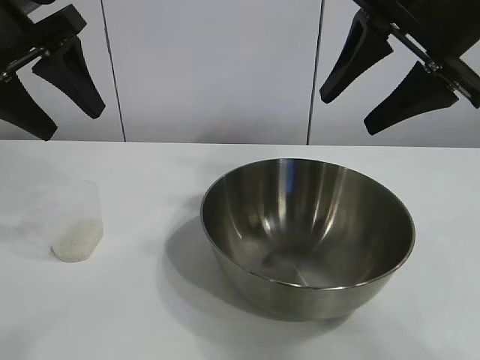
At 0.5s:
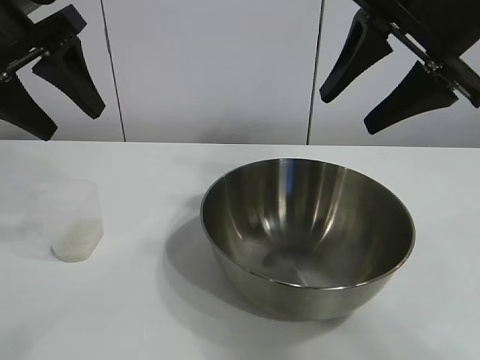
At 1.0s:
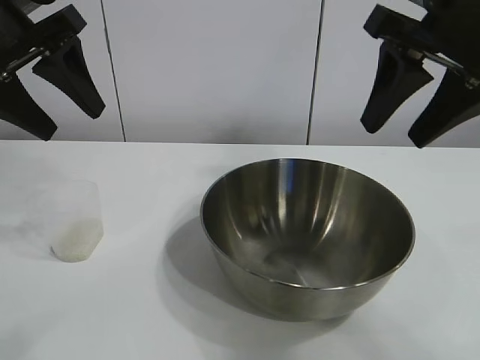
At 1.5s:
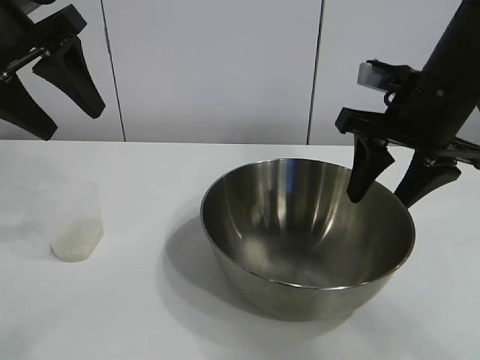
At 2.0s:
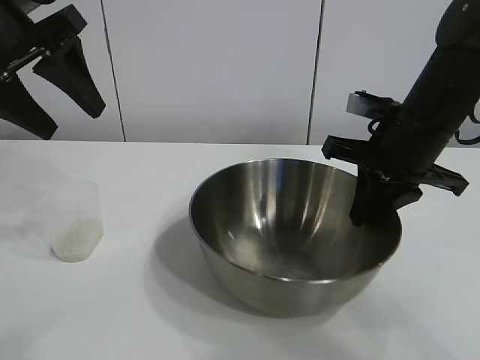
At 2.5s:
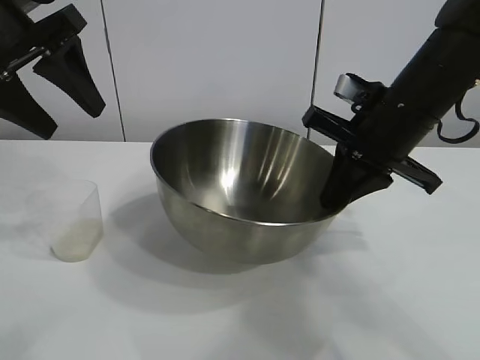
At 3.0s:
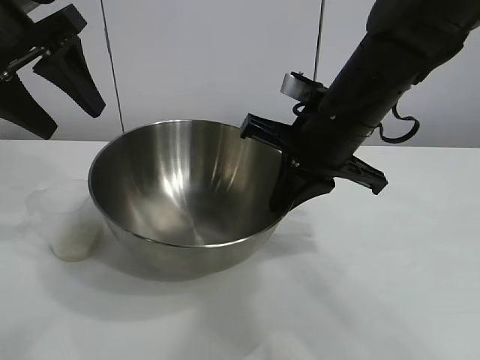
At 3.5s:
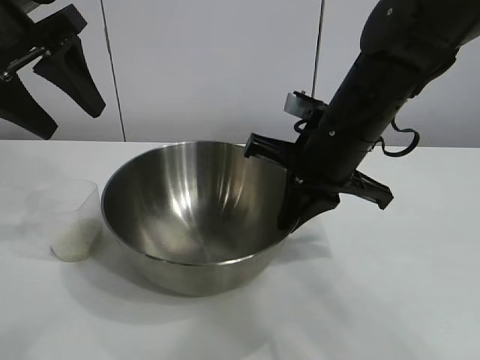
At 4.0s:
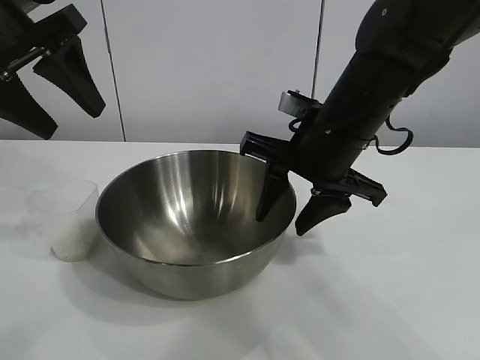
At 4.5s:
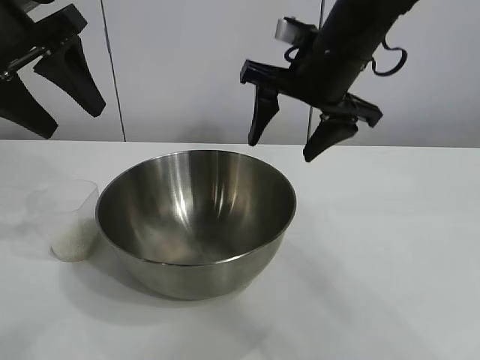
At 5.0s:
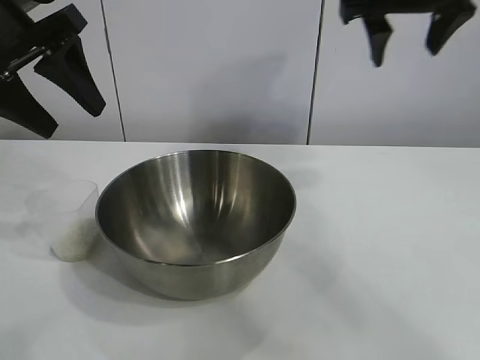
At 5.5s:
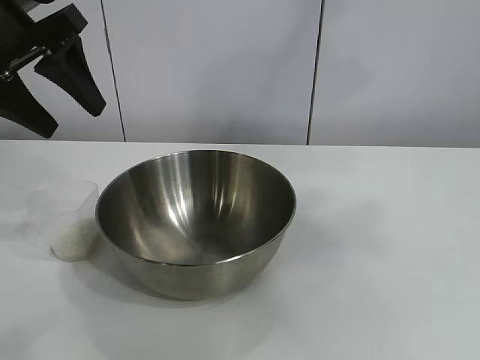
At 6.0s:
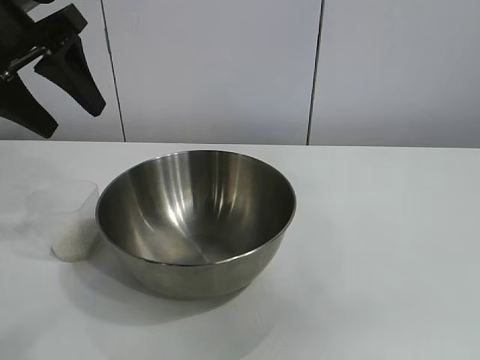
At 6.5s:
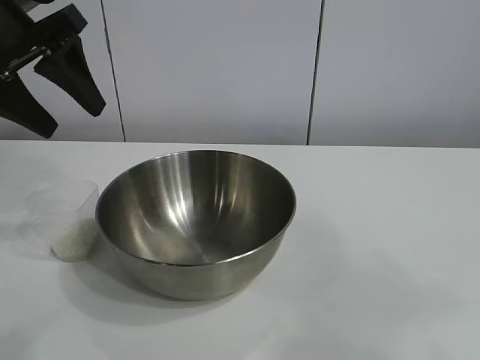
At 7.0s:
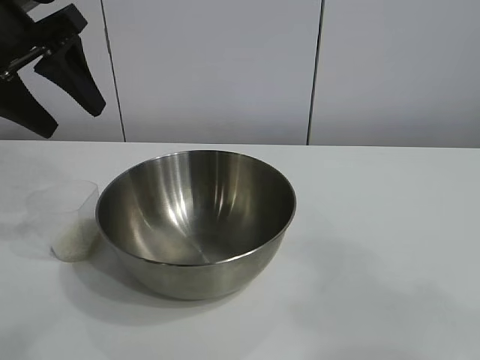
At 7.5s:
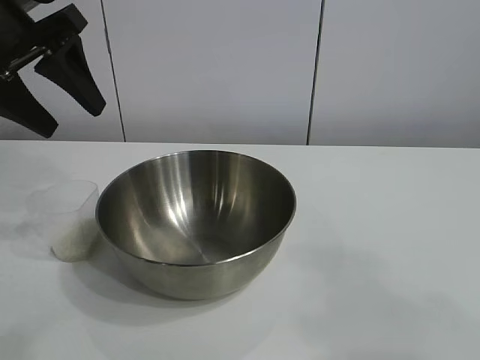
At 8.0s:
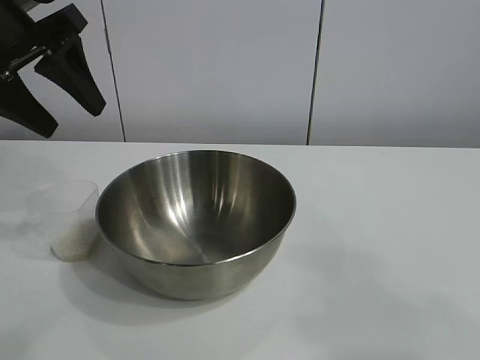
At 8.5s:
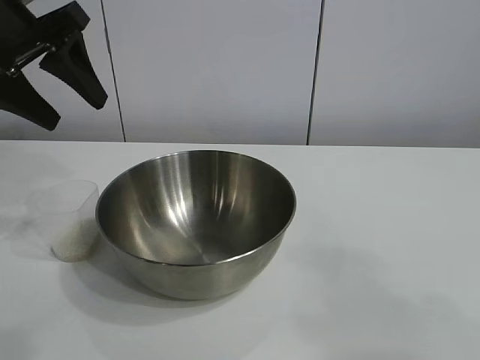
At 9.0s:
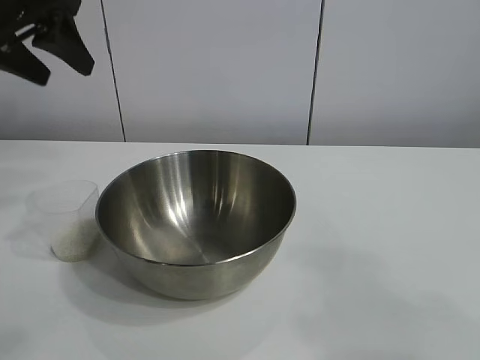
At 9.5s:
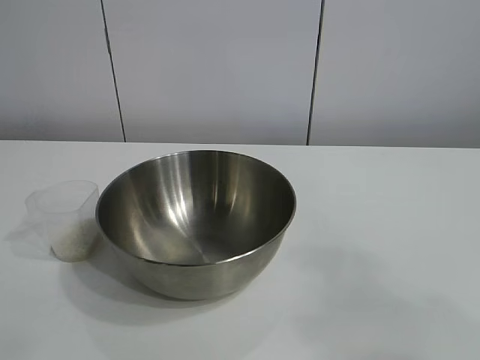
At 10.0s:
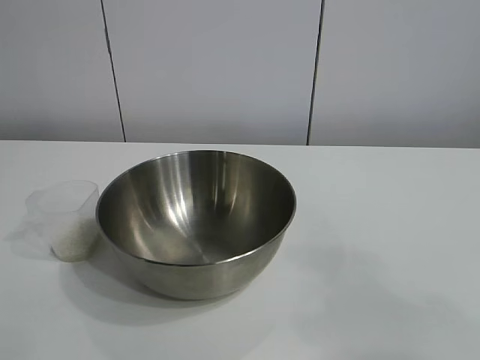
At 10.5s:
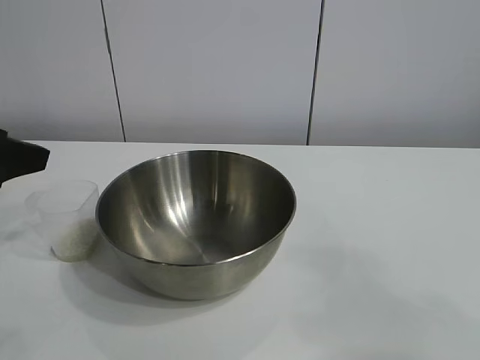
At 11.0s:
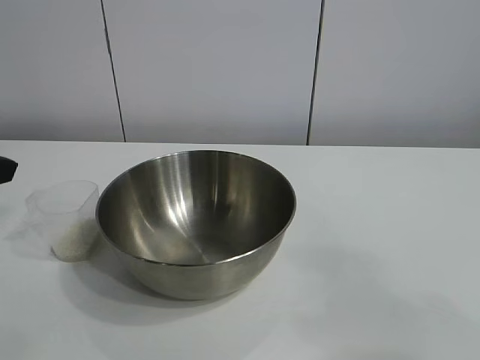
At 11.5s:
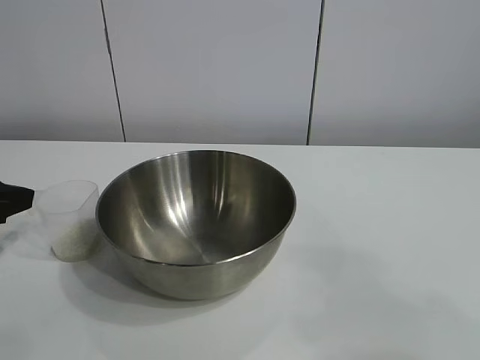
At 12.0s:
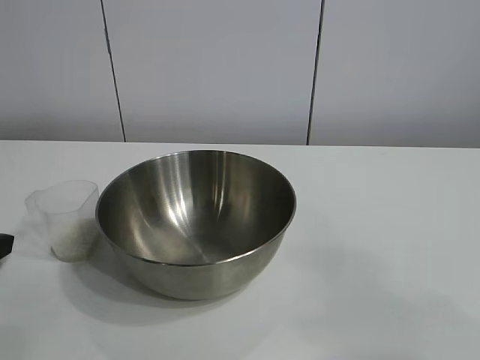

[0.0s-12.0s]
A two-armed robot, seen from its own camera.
Task of the whole recording: the right gripper grasp the rice container and place it in the center of the table, the left gripper grasp the rice scoop and pour the rice into the rice container.
Step, 1.0s to 4.0s: Move the bowl in the center of view with right gripper.

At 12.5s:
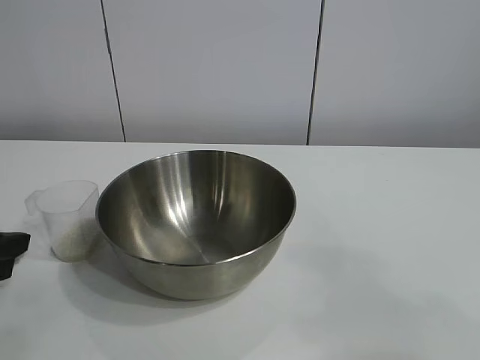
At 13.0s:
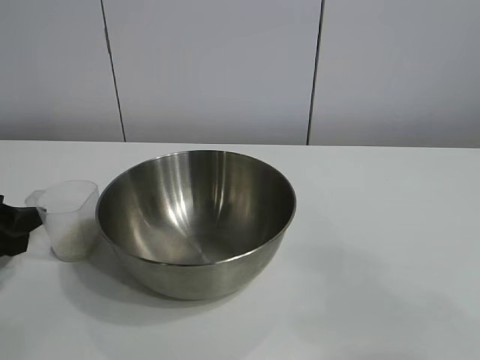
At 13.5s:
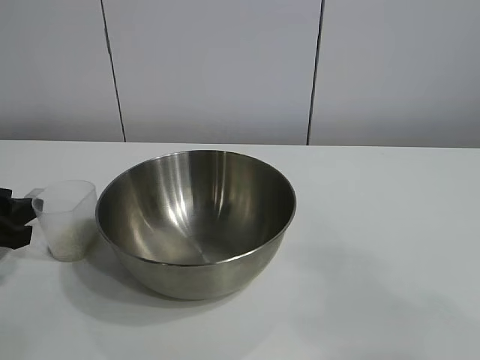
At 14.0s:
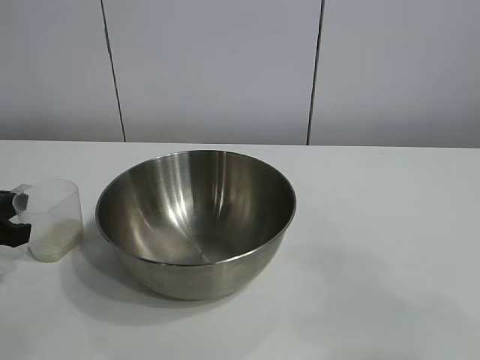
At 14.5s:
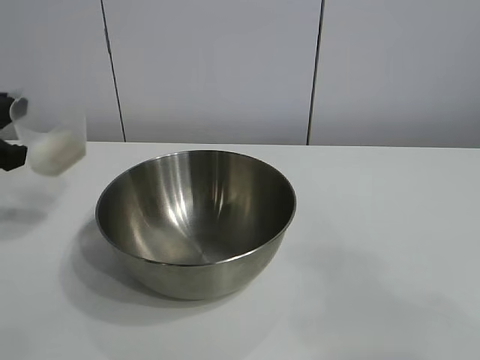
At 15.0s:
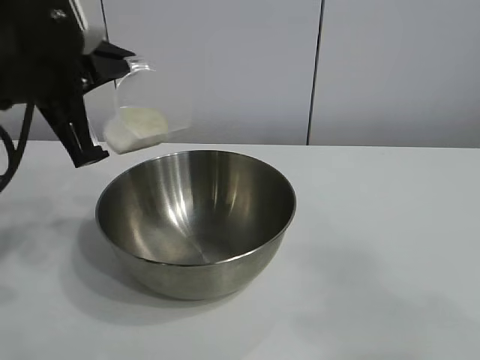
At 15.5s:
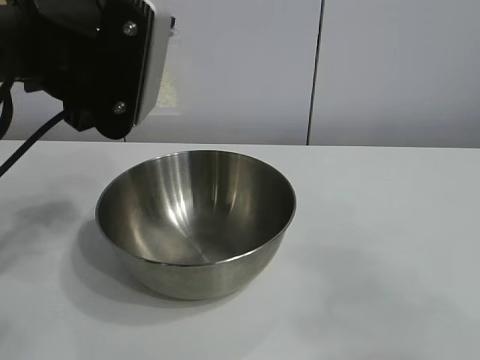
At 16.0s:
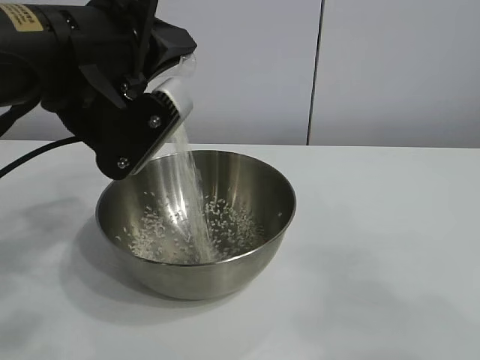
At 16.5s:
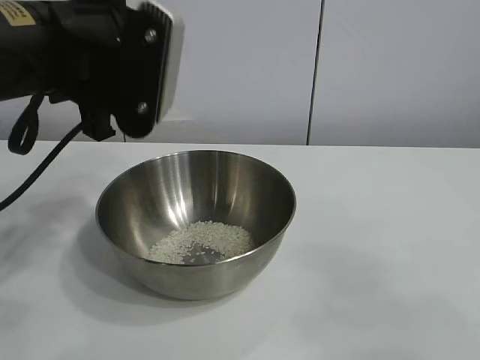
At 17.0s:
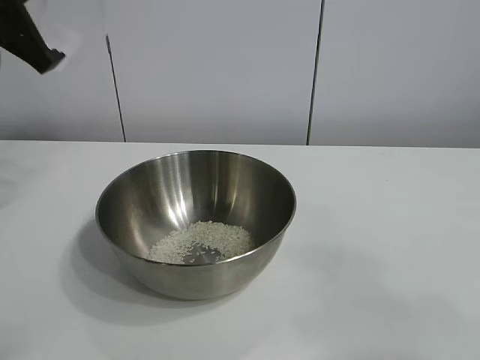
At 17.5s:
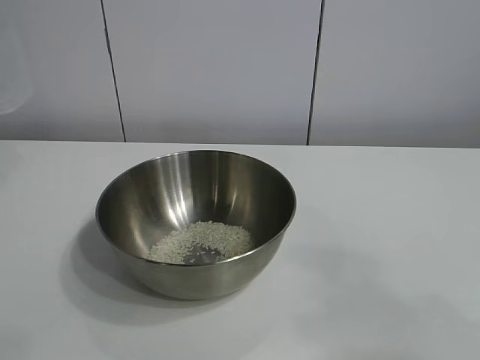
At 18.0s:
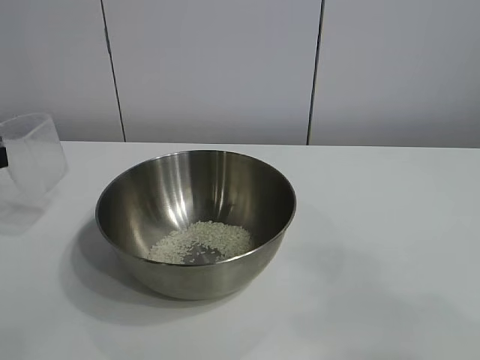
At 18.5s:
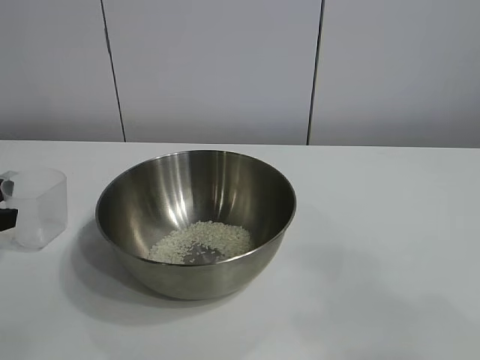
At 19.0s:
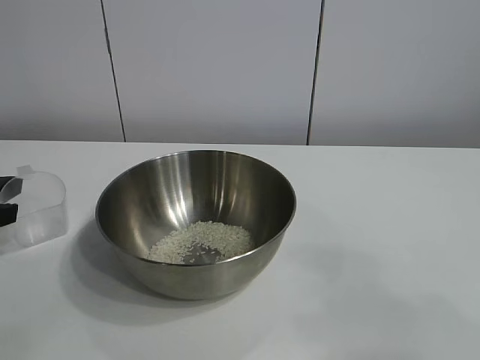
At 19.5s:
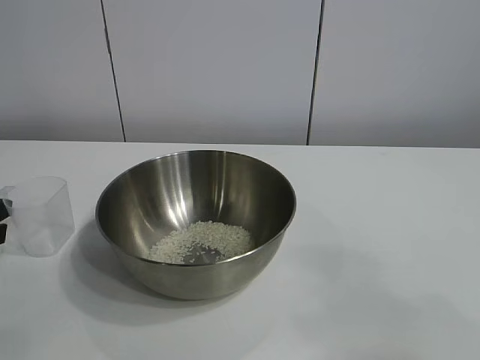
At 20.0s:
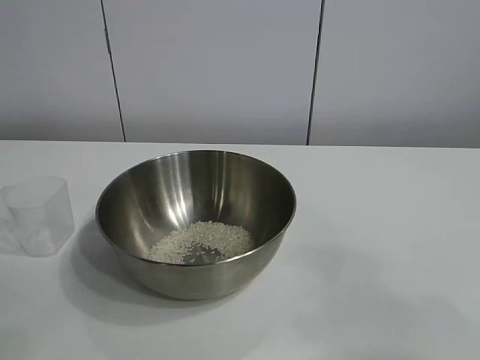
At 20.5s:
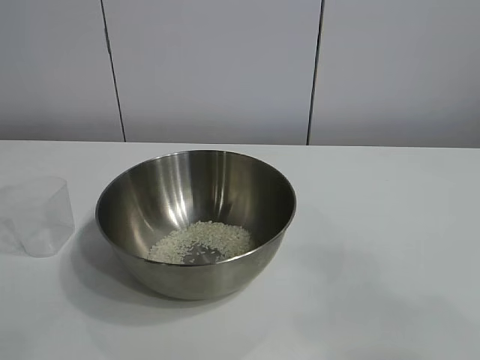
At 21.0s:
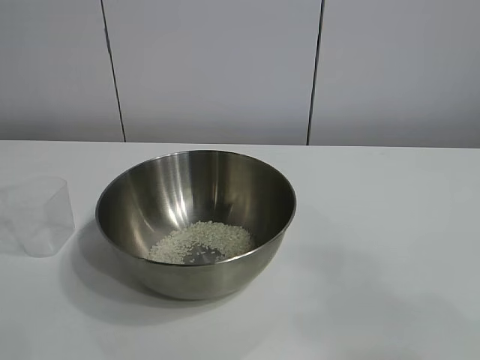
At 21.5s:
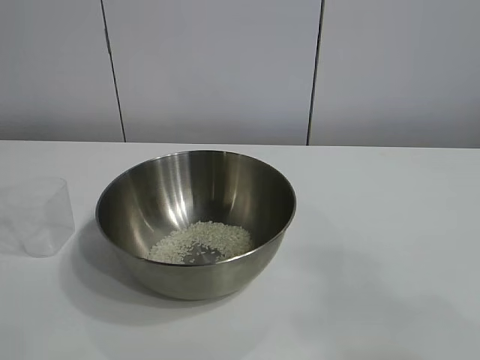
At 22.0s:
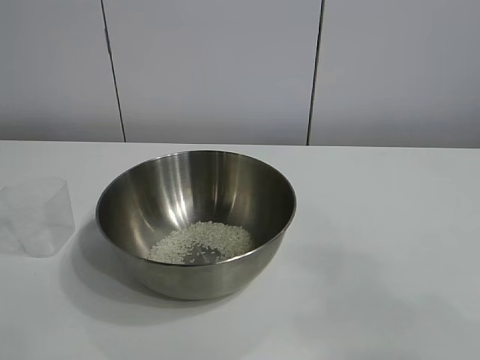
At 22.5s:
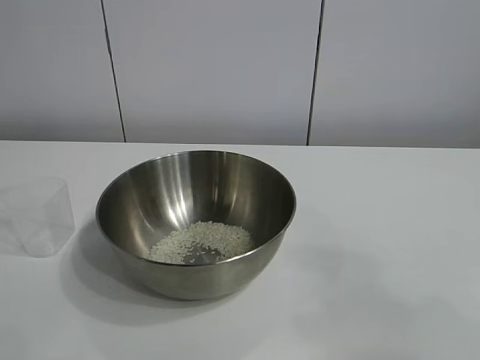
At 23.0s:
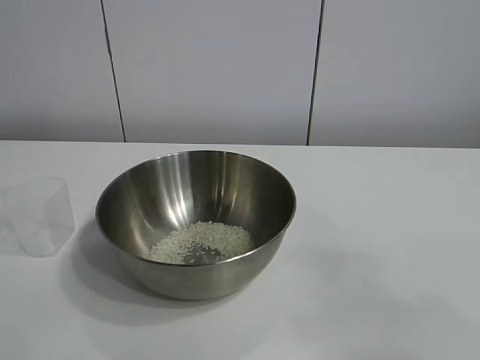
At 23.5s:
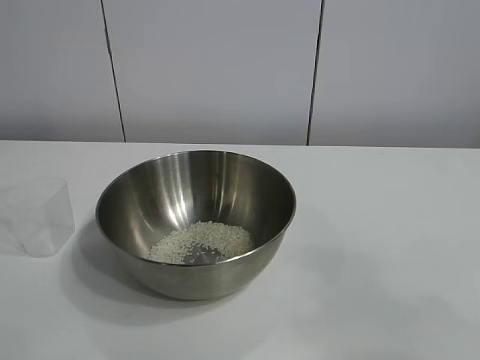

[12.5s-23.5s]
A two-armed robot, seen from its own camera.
Task of the whole recording: the right gripper grasp the rice container and place it in the center of the table, the left gripper grasp the rice scoop and pour the rice into the rice container.
Step, 14.0s to 16.0s: Pour the rice from the cup into the bowl with the left gripper.
Step, 16.5s to 19.0s: Place the cup on the table with the left gripper.

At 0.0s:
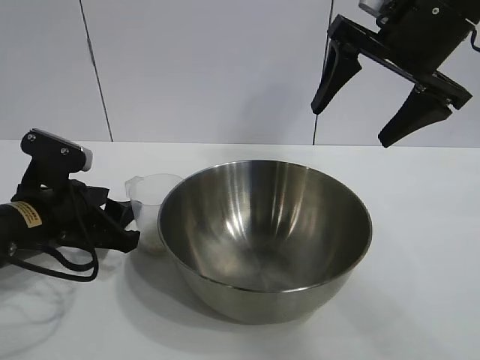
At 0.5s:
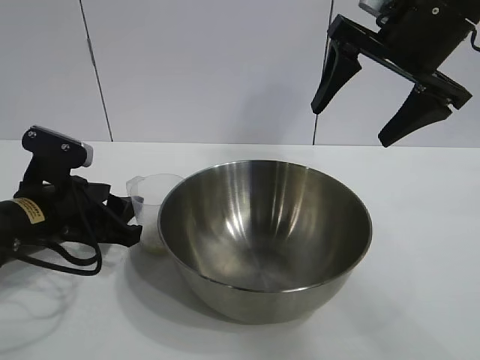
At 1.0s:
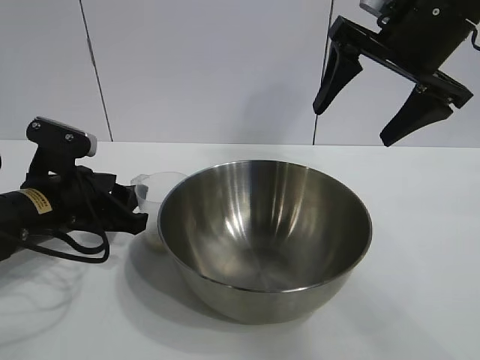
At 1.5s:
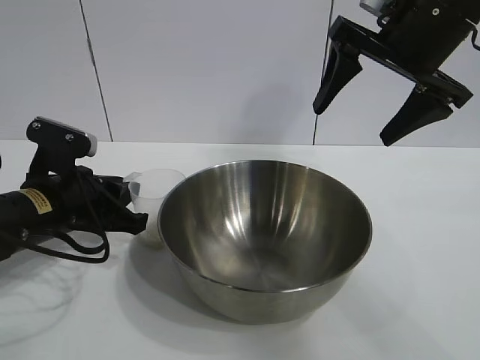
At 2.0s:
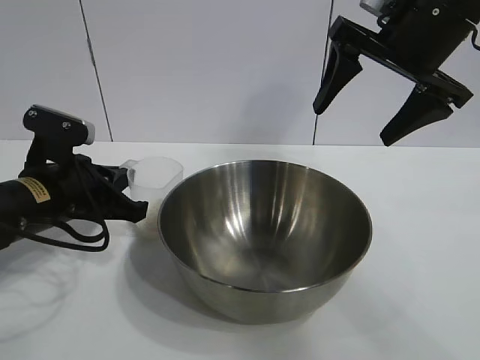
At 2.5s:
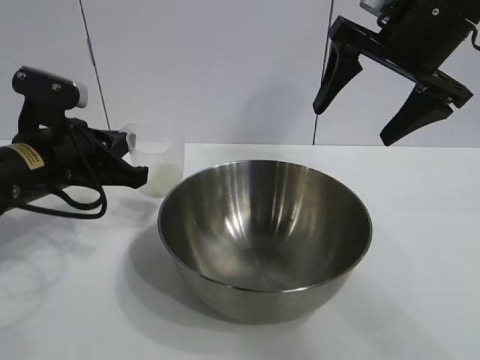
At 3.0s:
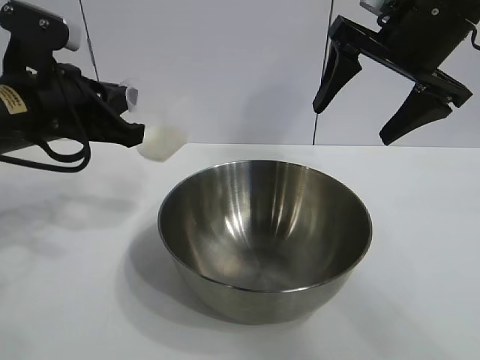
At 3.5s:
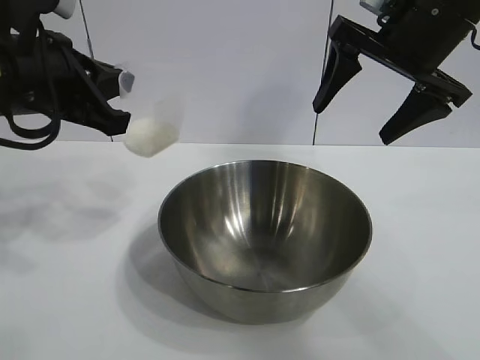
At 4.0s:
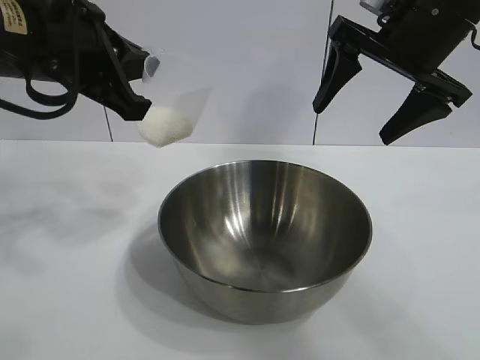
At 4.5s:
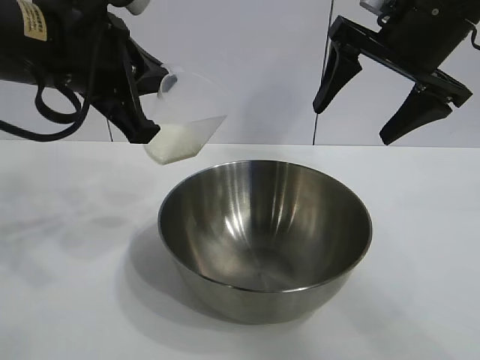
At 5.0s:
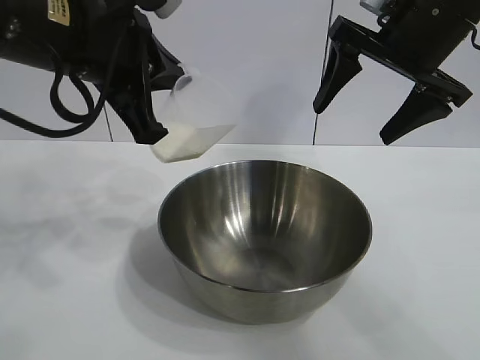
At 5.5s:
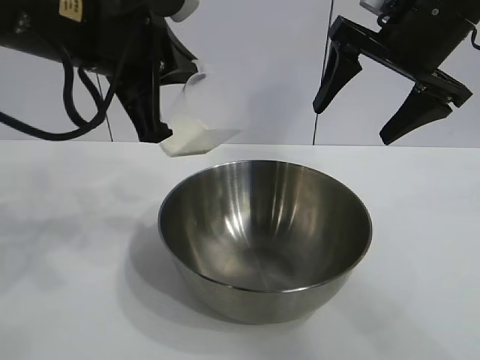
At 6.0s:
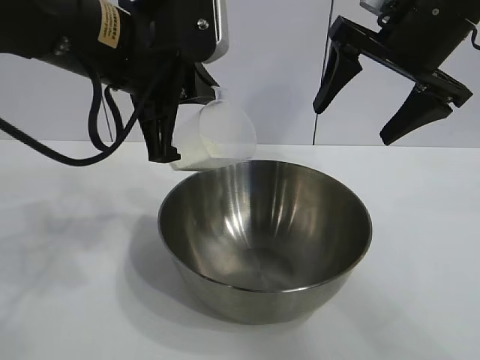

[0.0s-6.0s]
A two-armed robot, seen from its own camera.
Task of the whole recording: the right gripper grasp the rice container and place it in the center of the table, the left gripper grasp the rice scoop and pour the rice into the rice container.
Step, 0.0s to 2.0s: Grasp the cup with rice in it with left gripper.
